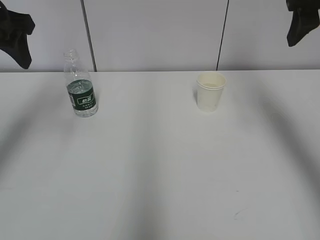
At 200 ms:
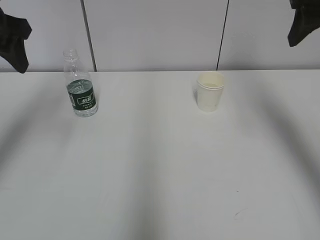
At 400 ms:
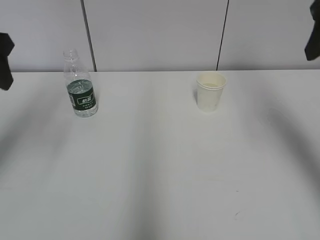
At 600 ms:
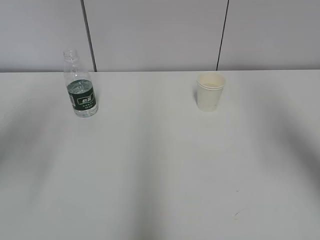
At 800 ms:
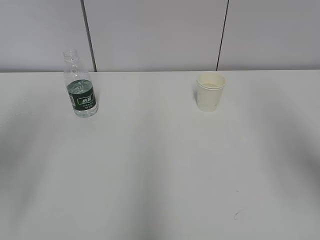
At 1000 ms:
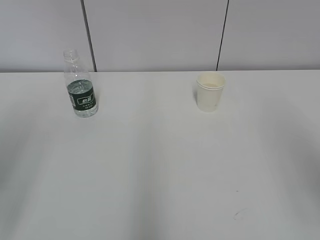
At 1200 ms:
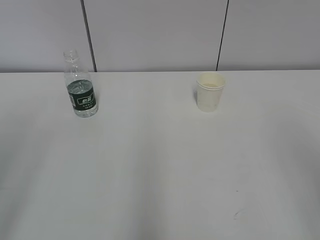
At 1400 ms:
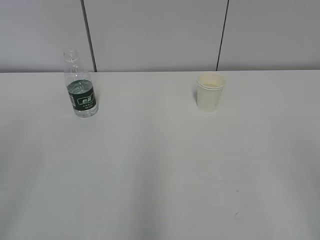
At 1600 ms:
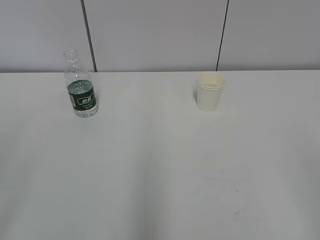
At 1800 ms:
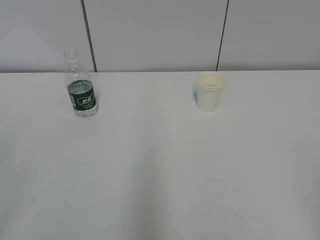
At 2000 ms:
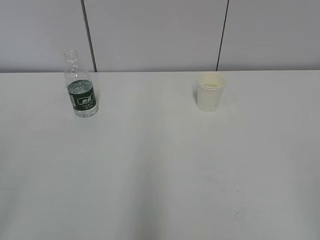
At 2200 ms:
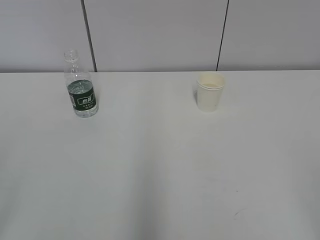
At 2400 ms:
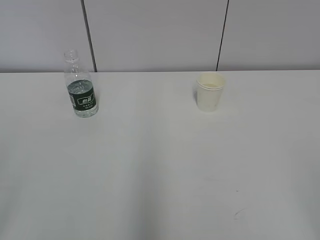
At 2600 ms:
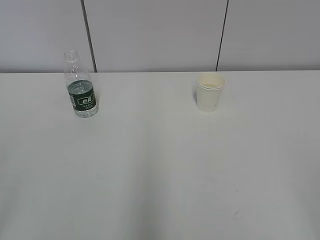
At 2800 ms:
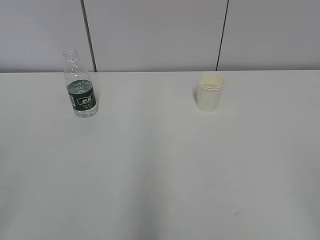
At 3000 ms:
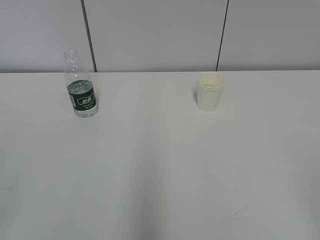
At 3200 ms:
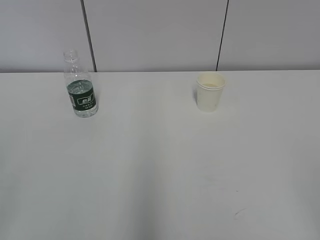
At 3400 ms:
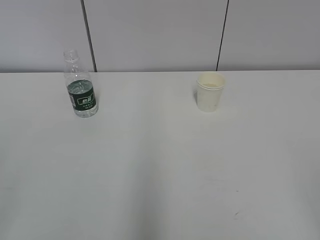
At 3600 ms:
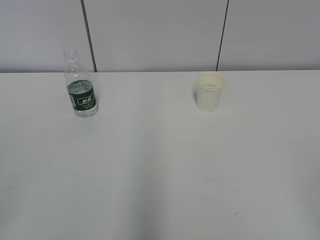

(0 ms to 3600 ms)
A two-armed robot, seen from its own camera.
0 ms - 1800 ms: The two grippers go about 35 cm backward.
